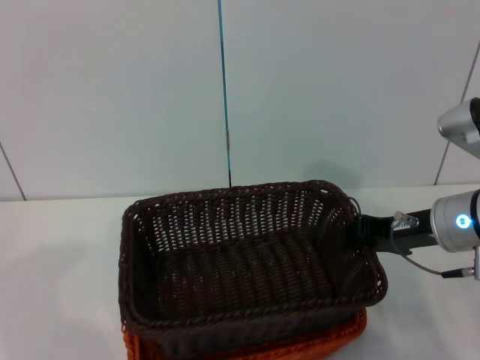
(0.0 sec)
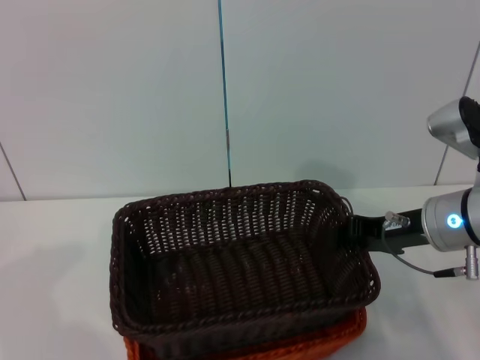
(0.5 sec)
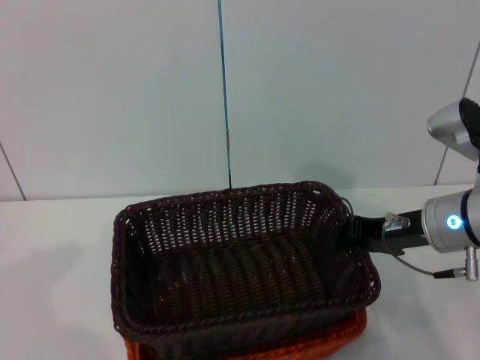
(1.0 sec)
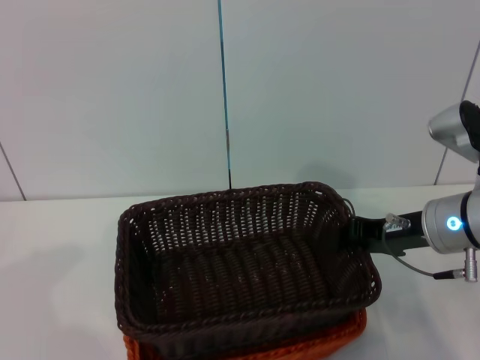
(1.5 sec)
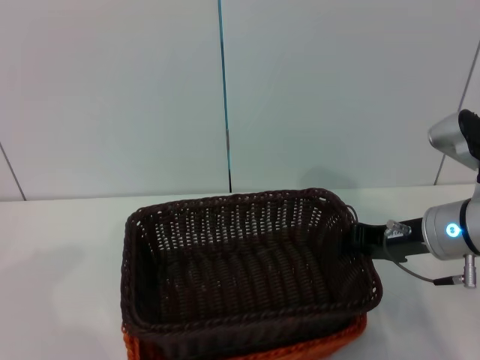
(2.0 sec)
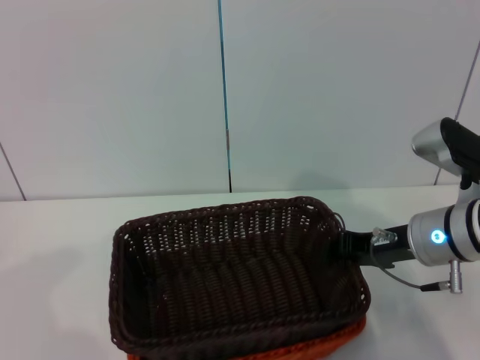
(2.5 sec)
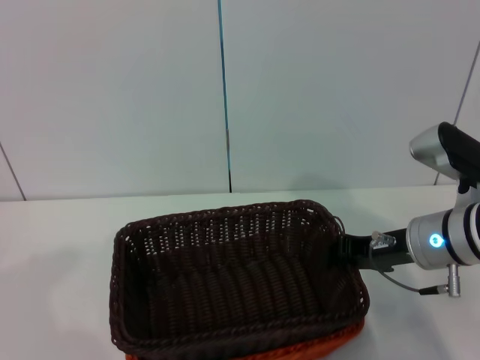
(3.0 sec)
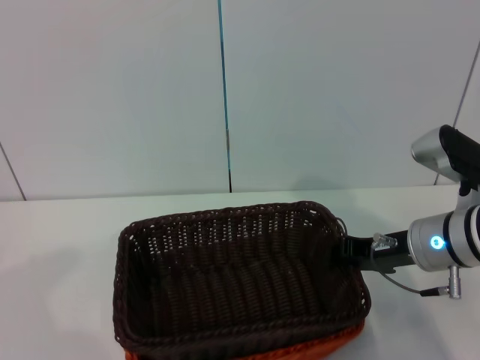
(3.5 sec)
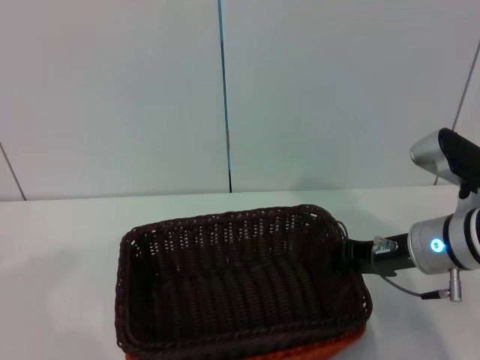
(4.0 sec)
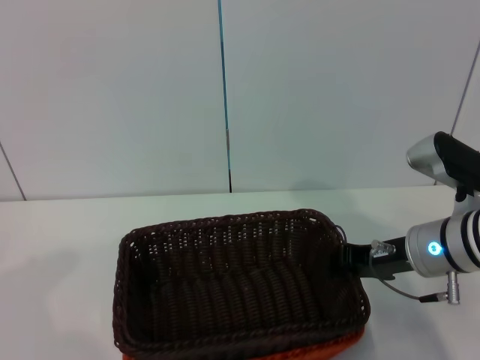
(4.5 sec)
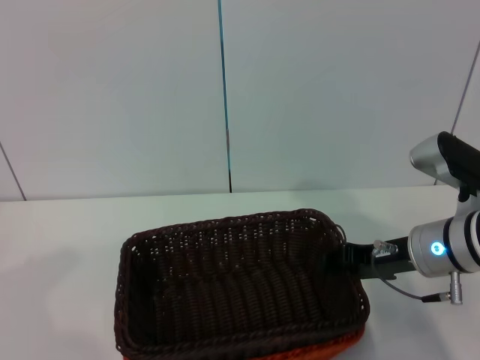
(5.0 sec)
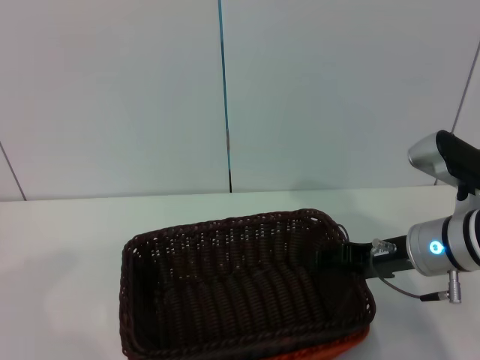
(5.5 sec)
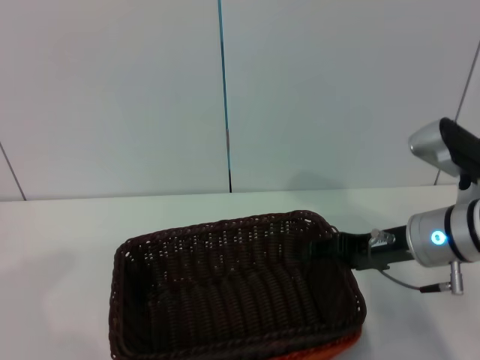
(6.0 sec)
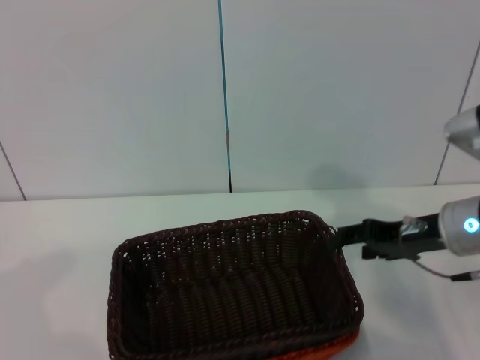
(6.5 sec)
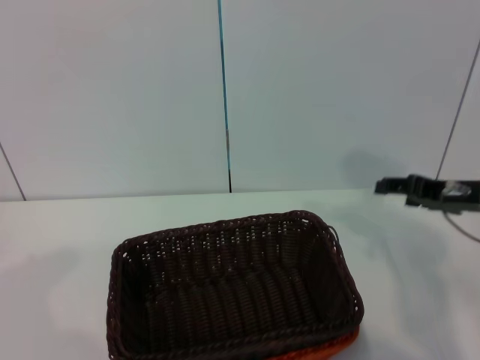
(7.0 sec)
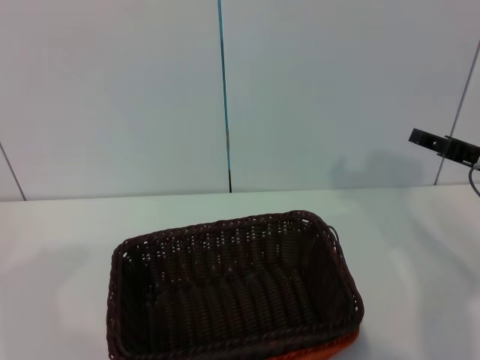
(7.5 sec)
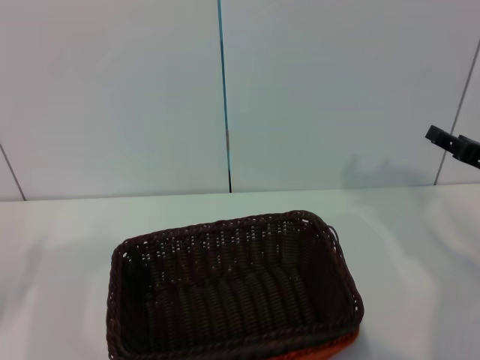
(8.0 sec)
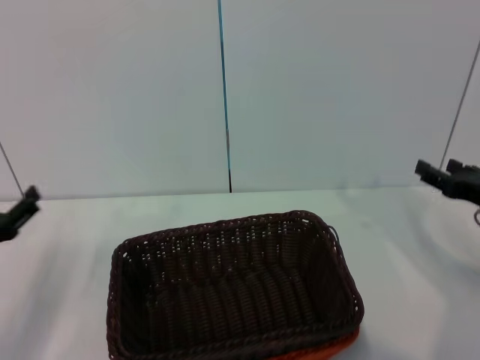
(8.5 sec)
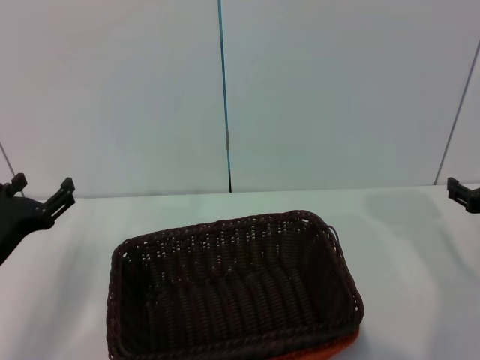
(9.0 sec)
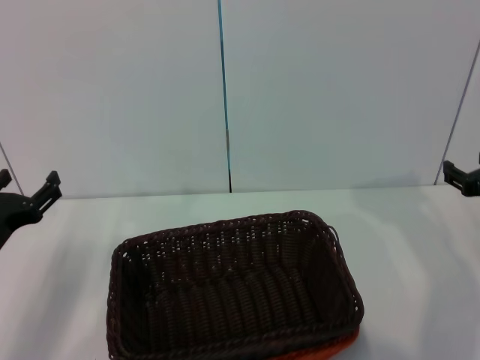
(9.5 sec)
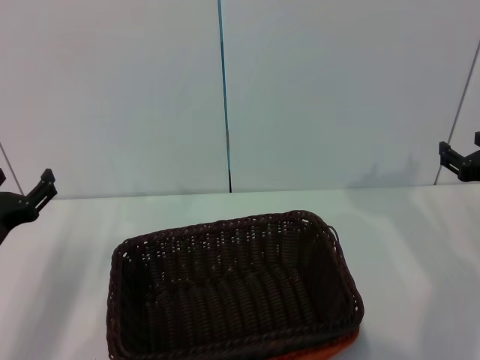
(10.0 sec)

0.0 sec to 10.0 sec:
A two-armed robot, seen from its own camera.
Step, 0.0 sec to 6.0 sec: Place the dark basket on the light basket with the right gripper.
0.0 sec to 4.0 sec: The grippers stay close to where they were, moving slightly.
4.0 sec to 6.0 sec: The right gripper opens.
6.0 sec to 8.0 sec: The right gripper travels to the right by some 10 cm.
8.0 sec to 10.0 sec: The left gripper travels to the right by approximately 10 cm.

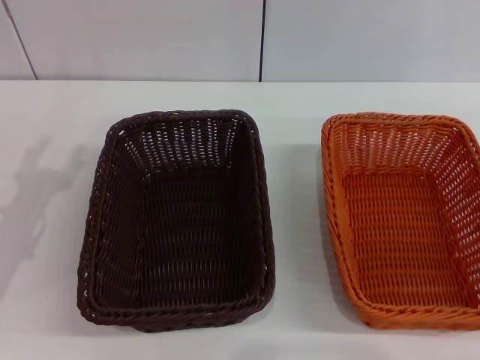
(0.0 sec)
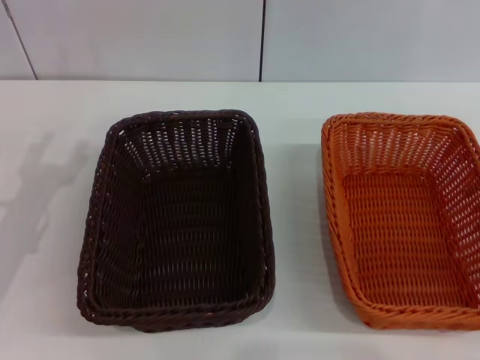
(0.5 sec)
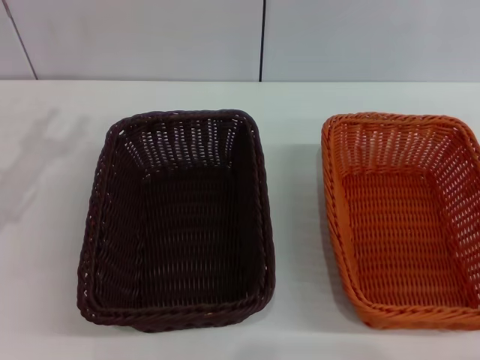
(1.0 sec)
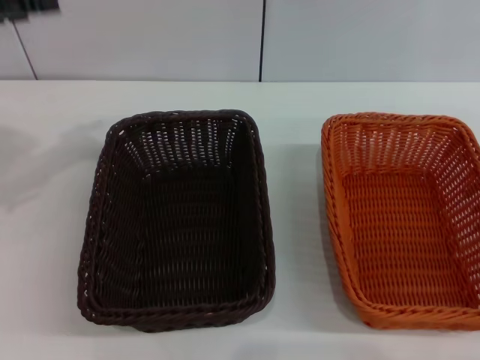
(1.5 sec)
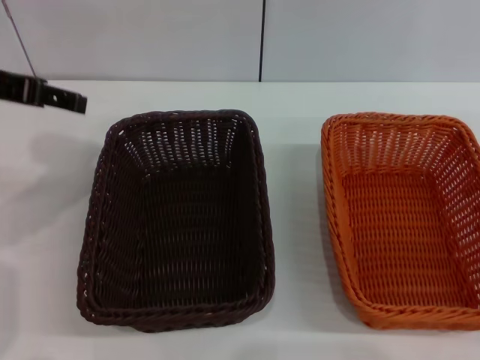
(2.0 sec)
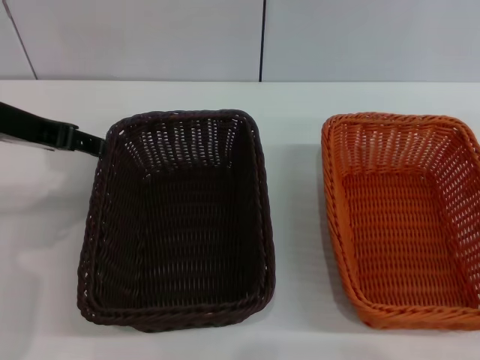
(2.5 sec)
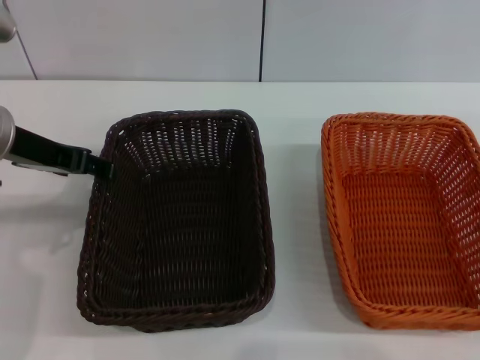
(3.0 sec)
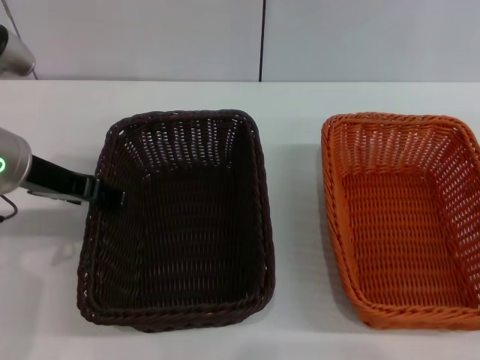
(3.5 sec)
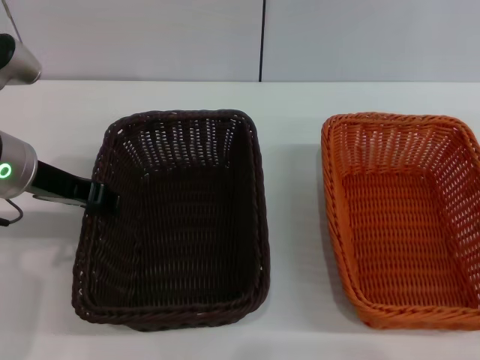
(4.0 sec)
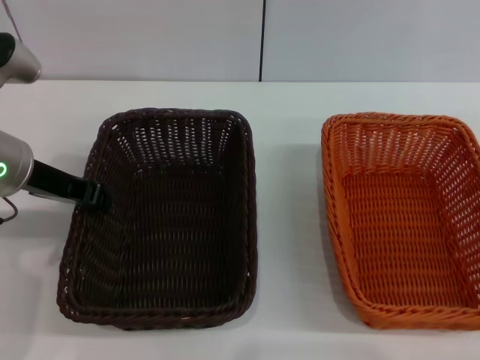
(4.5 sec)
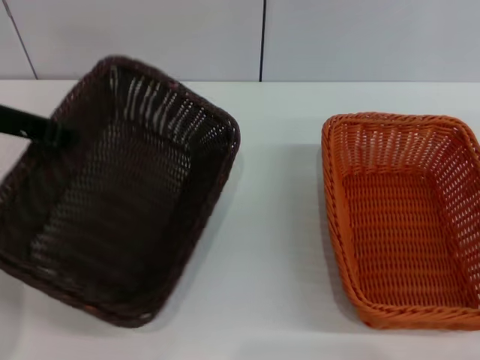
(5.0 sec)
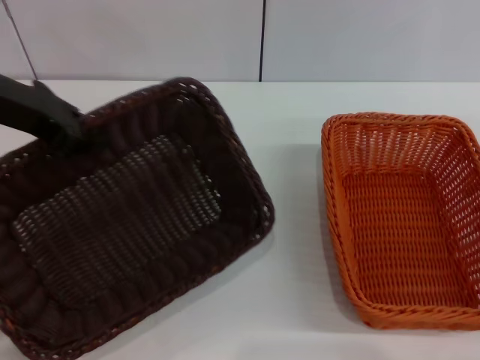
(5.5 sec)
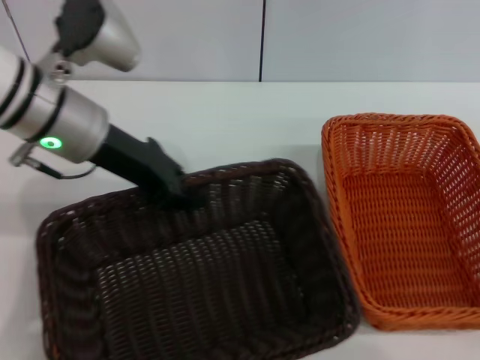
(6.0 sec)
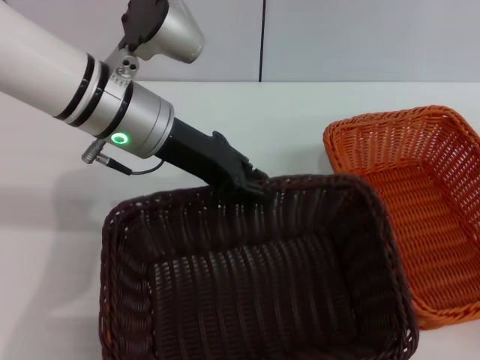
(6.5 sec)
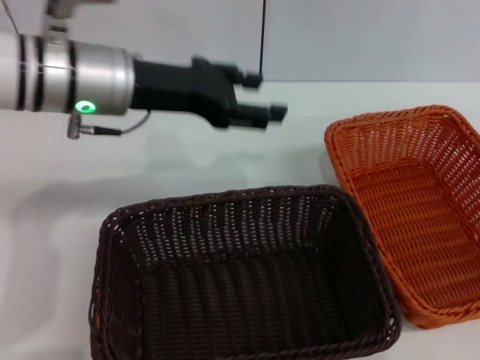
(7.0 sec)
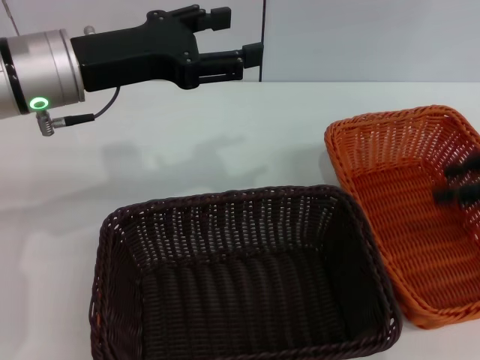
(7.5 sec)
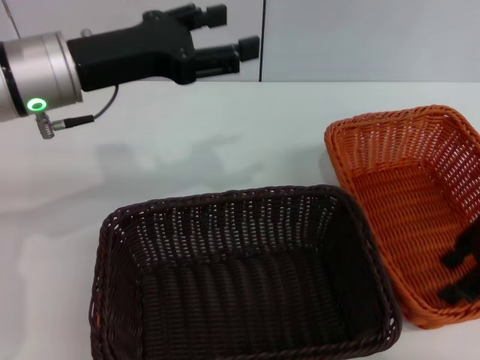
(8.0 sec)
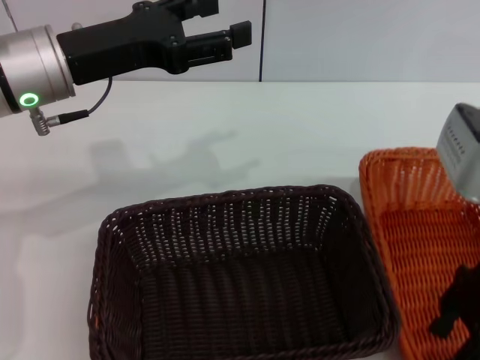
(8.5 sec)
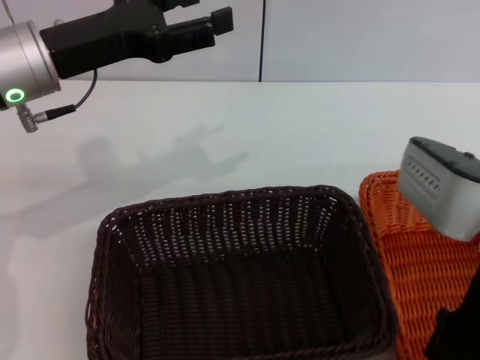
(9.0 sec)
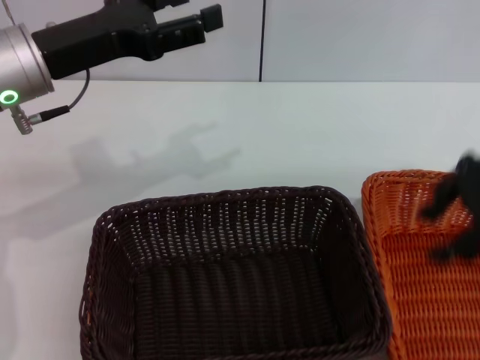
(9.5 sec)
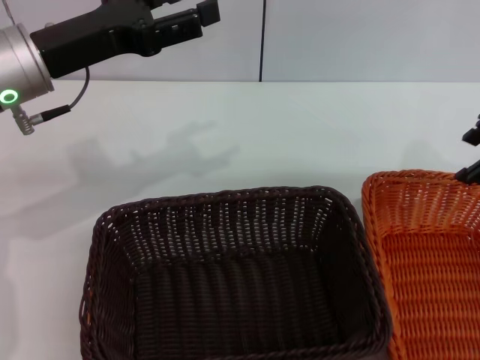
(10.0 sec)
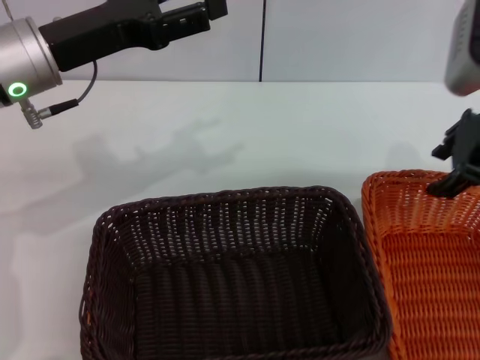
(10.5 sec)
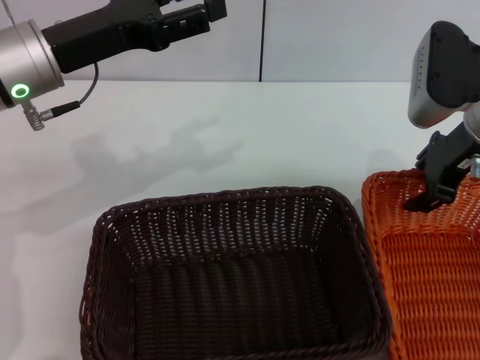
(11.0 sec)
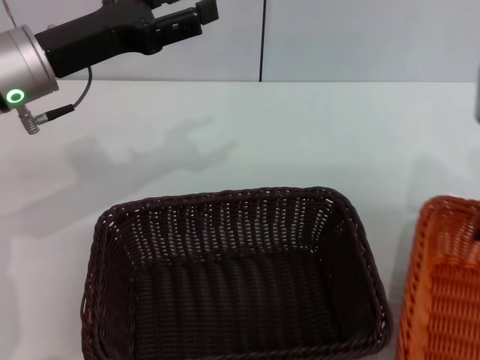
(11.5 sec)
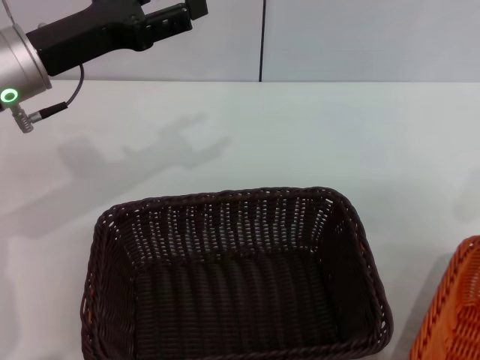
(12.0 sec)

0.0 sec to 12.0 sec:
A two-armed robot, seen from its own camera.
Step, 0.0 sec to 4.5 sec: Pick up the dark basket with the left gripper.
Step, 5.0 sec to 6.5 sec: Place the dark basket in the center of view with the left gripper.
0.0 sec to 2.0 sec: The left gripper travels upward by about 15 cm.
2.0 sec to 4.0 sec: The left gripper moves downward, roughly 10 cm.
4.0 sec to 6.0 sec: The left gripper heads to the right, covering about 5 cm, and closes up.
6.0 sec to 8.0 sec: The left gripper opens its fingers, while the right gripper goes approximately 15 cm upward and to the left.
8.0 sec to 10.0 sec: The right gripper travels upward by approximately 5 cm.
10.0 sec to 12.0 sec: The right gripper goes some 10 cm to the right and downward, and closes its fingers.

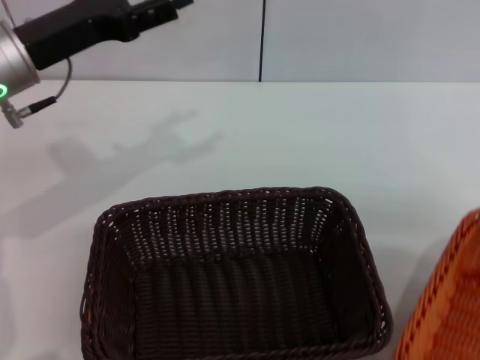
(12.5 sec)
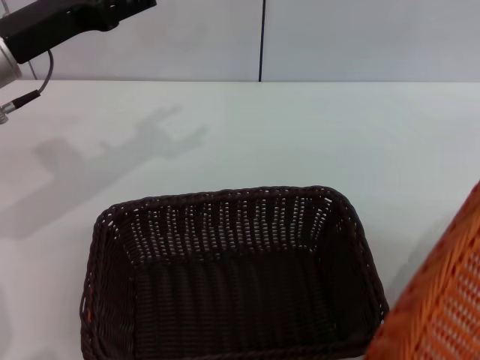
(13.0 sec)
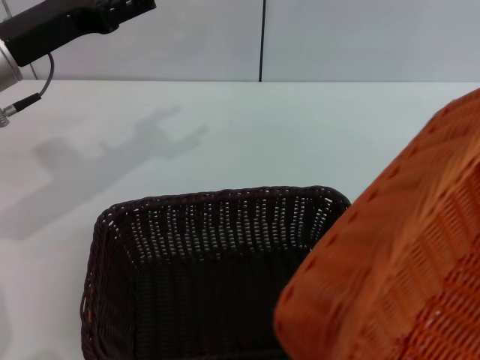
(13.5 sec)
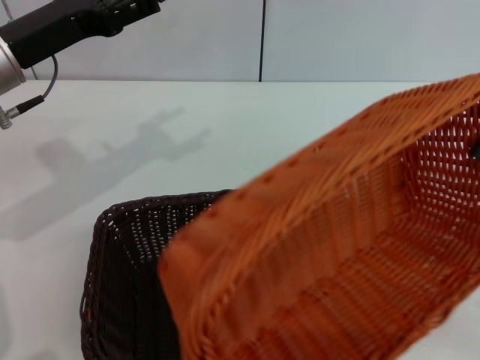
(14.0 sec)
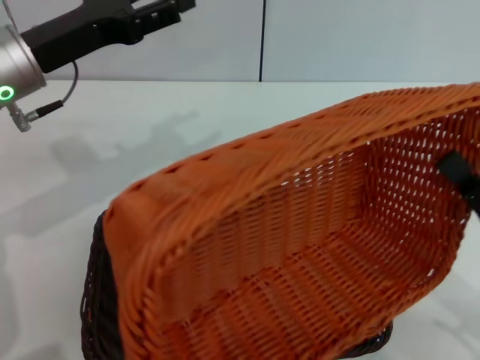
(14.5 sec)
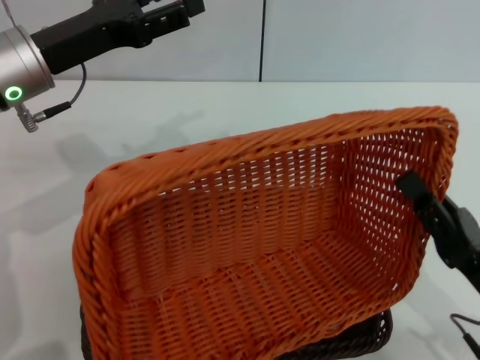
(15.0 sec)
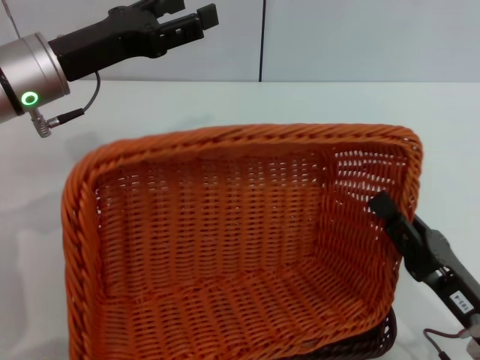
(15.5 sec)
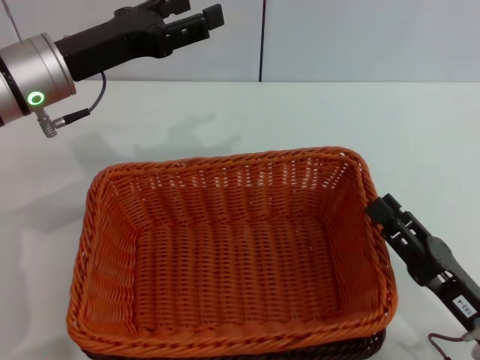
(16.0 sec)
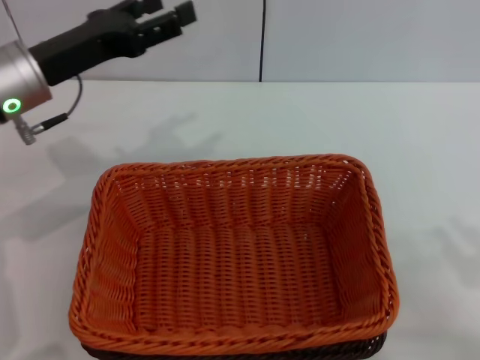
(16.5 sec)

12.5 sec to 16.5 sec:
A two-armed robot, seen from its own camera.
Step, 12.5 sec to 16.0 sec: Place the light basket on the dark basket with the right gripper.
12.5 sec to 14.5 sec: The right gripper moves downward, to the left and backward, some 20 cm.
14.5 sec to 16.5 sec: The right gripper changes place by some 5 cm, and opens its fingers.
